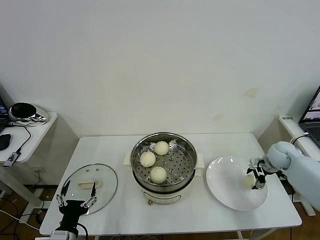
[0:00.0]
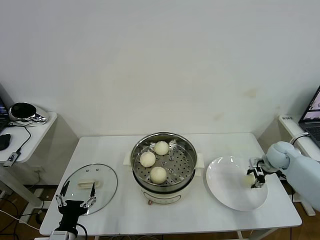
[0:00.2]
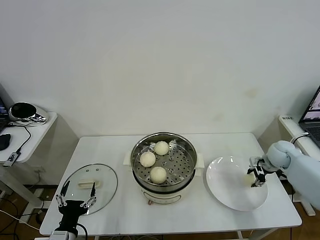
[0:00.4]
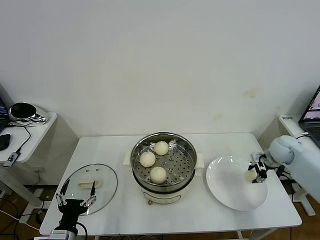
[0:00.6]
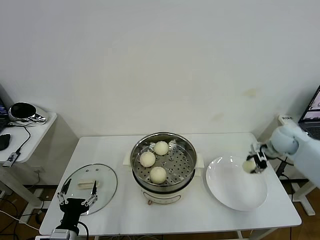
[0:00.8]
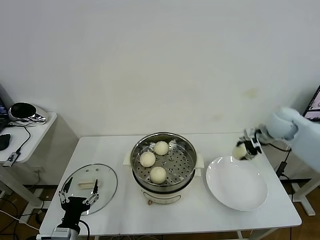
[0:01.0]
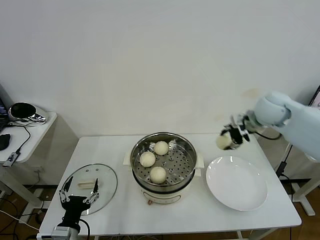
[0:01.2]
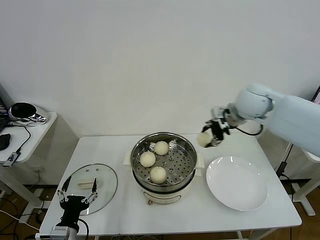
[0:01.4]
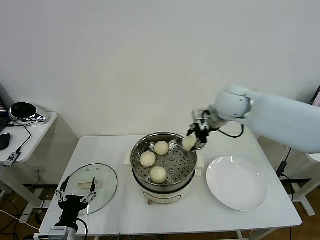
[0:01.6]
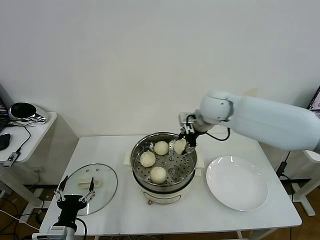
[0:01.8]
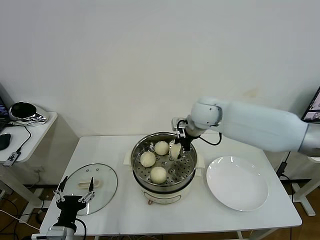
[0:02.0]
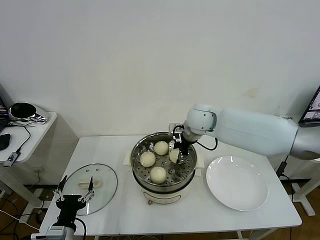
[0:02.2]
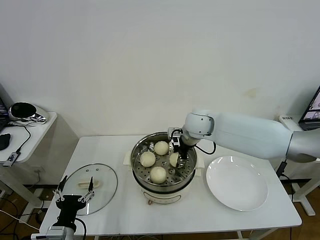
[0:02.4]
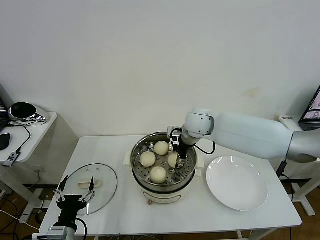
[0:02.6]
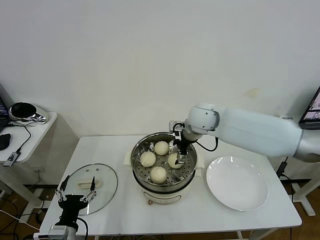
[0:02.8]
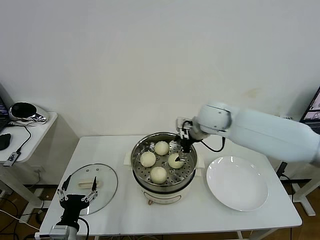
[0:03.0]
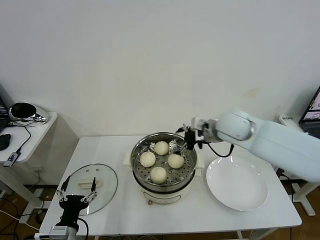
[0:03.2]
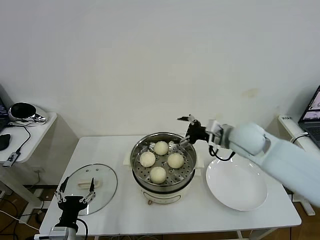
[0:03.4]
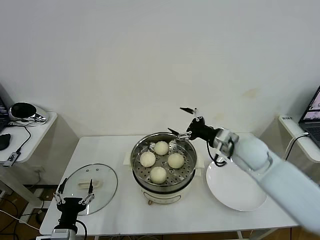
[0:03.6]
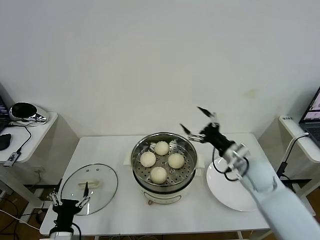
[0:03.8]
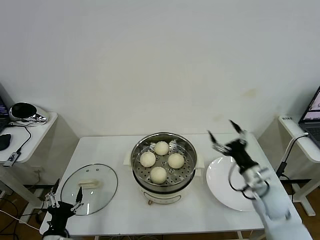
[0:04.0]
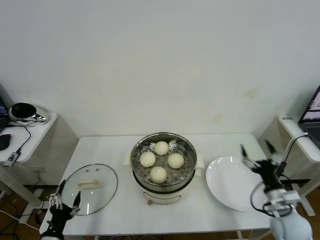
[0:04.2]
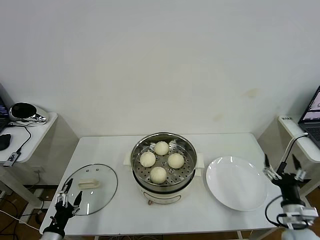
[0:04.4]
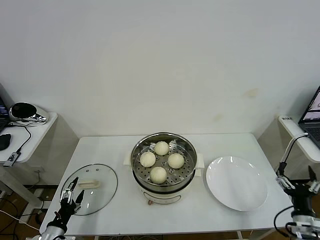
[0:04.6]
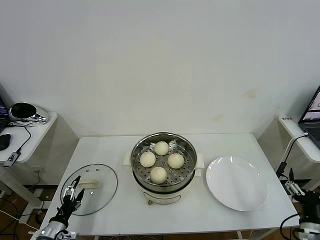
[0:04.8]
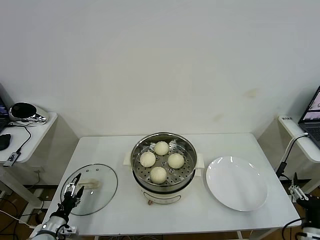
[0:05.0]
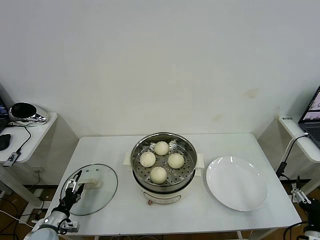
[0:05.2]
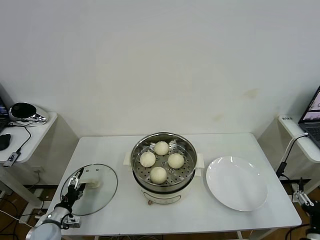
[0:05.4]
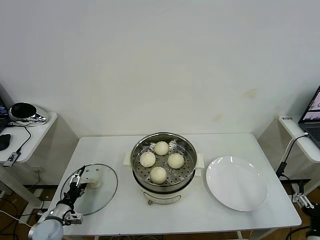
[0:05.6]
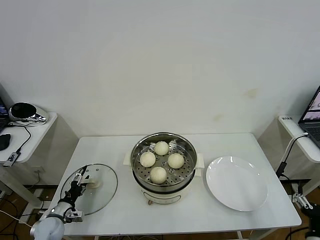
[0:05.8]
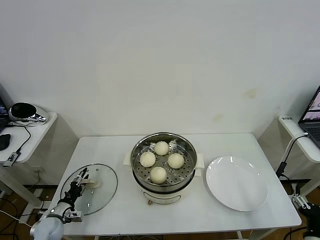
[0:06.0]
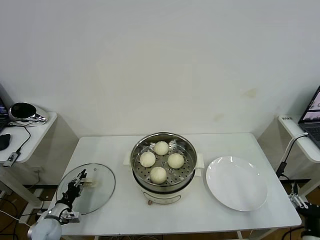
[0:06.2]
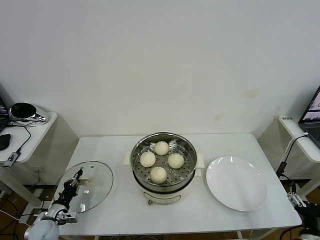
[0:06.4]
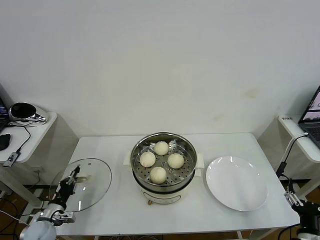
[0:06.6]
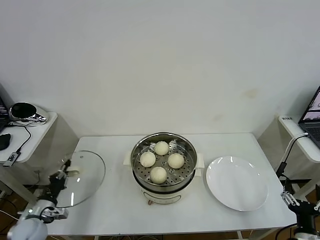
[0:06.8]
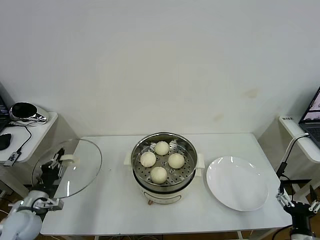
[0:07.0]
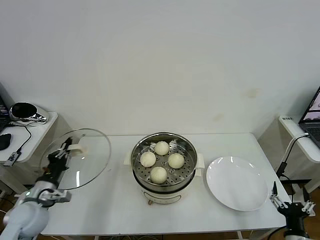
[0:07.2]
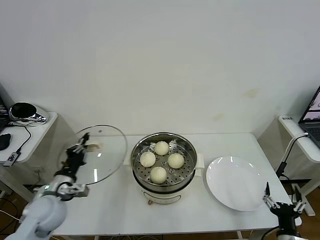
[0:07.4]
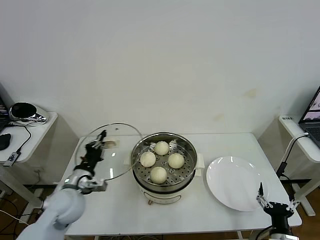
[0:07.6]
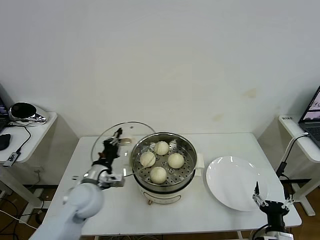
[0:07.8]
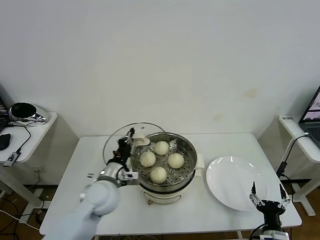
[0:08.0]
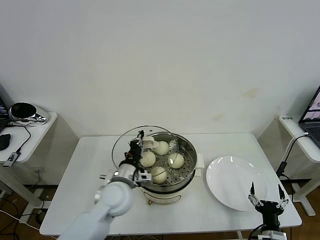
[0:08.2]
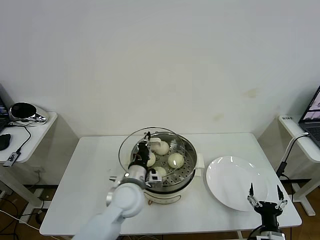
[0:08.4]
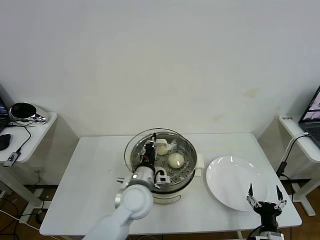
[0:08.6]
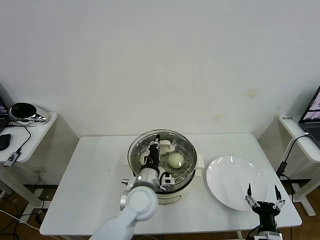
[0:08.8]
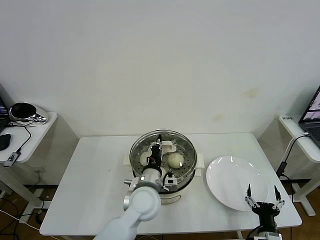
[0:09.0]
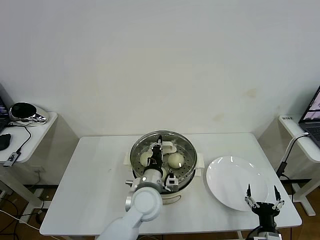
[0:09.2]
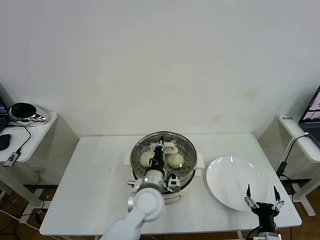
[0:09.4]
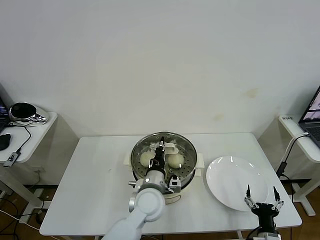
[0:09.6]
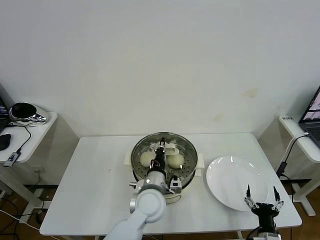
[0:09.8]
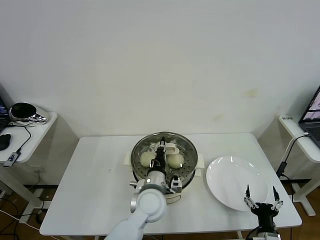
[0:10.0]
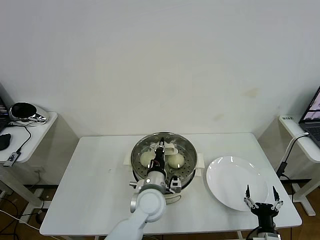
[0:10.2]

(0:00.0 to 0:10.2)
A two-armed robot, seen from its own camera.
Task of the whole recording: take steamed baozi put them in steamer then cover it.
Step, 0:00.6 - 0:02.8: Place the baozi on the steamer with right gripper.
Step, 0:03.0 - 0:06.6: Grasp the pot lid with left gripper.
0:00.0 - 0:01.4: The right gripper moves upward and to the left, approximately 30 cm.
0:01.4 - 0:03.0: The right gripper travels to the left and downward by approximately 10 cm, and opens.
0:03.0 - 0:04.4: The right gripper shifts some 40 cm backward, to the right and downward. Meanwhile the left gripper heads to the left and downward, covering about 10 cm.
0:04.4 - 0:05.8: The right gripper heads backward, covering some 10 cm. Meanwhile the left gripper heads forward and downward, covering about 15 cm.
0:05.8 - 0:07.2: The left gripper goes some 15 cm upward, and closes.
0:07.2 - 0:08.8: The left gripper goes approximately 35 cm to the right, while the right gripper is displaced to the left by about 5 cm.
0:08.8 - 0:10.2: The grippers move only a little.

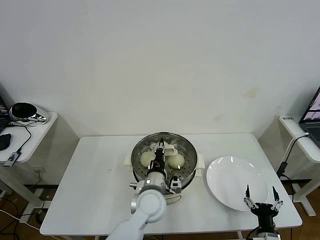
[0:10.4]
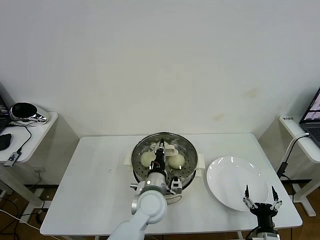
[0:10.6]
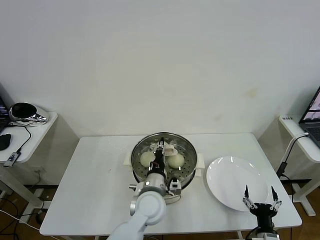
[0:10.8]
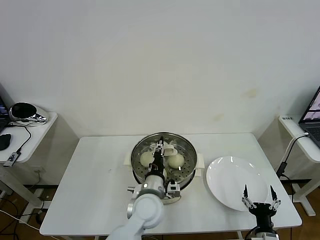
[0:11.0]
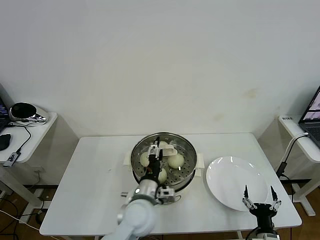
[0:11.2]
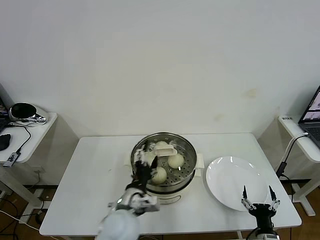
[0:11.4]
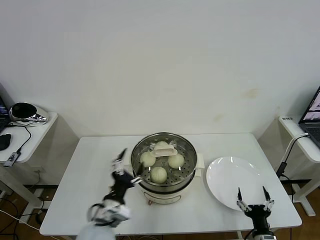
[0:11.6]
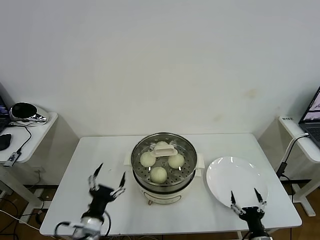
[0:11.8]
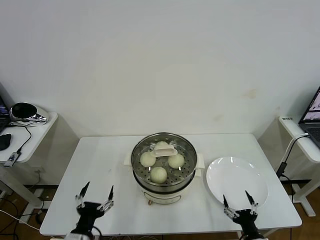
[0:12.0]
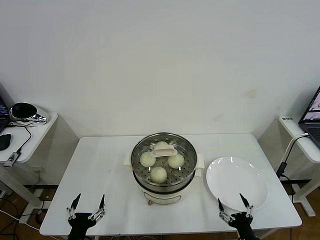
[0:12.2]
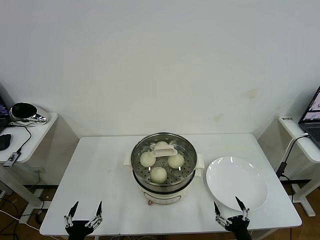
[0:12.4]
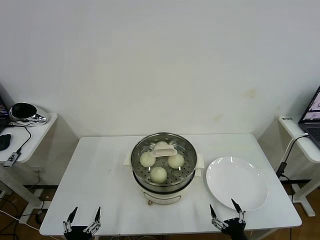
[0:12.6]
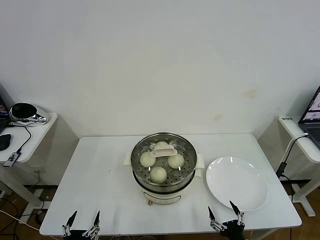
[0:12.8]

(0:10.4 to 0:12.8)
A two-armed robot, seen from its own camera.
Task of the whole recording: take steamed baozi put them in steamer then cover it.
0:10.4 - 0:11.6: The left gripper shifts roughly 15 cm to the left and backward, and opens its fingers.
0:11.6 - 0:12.8: The right gripper changes place by roughly 5 cm. The left gripper heads backward, to the left and downward, covering some 25 cm.
